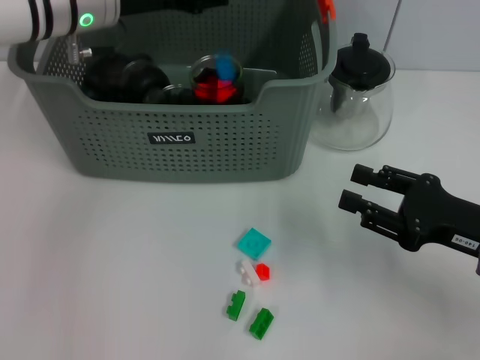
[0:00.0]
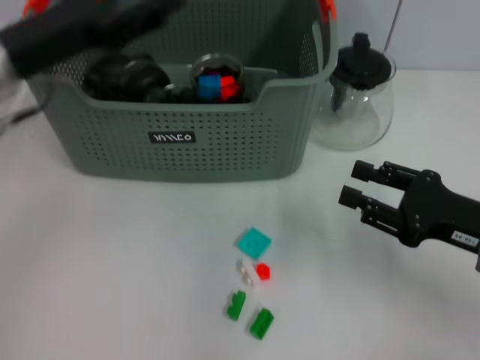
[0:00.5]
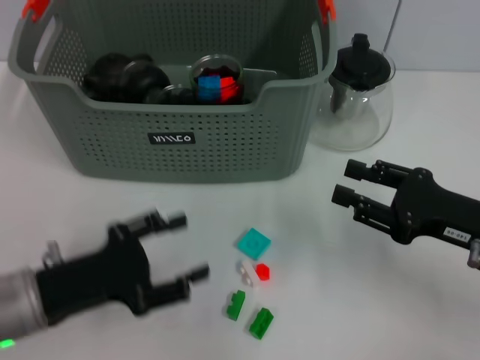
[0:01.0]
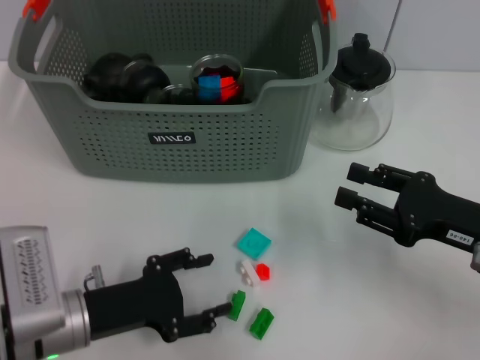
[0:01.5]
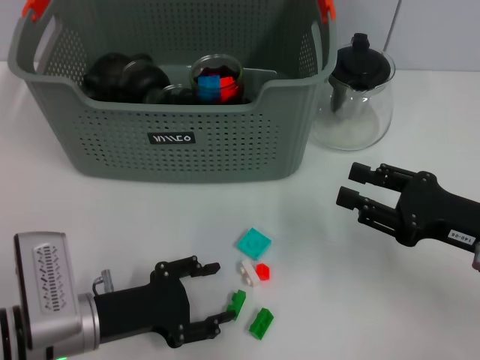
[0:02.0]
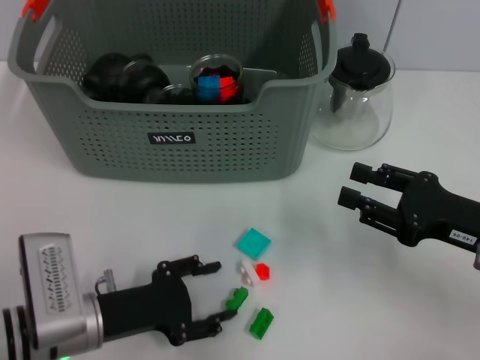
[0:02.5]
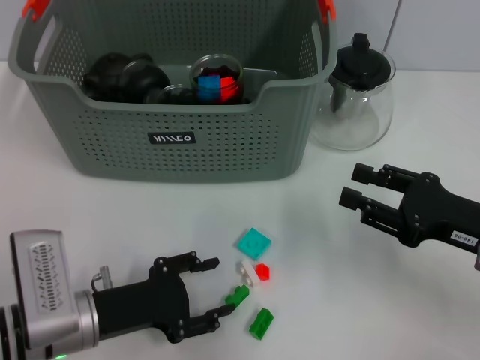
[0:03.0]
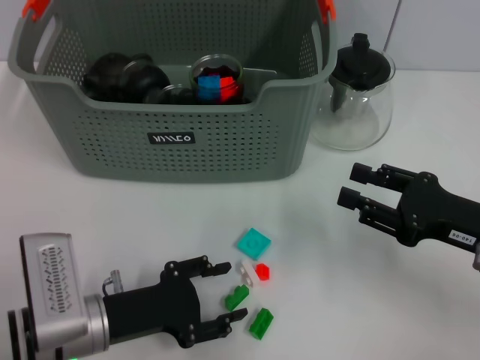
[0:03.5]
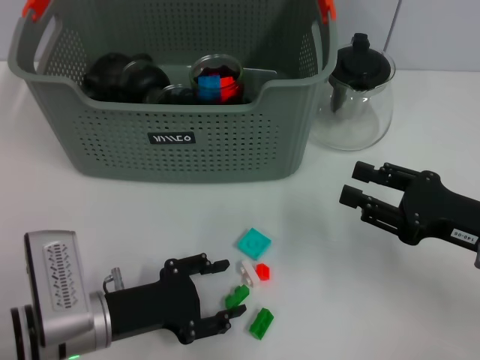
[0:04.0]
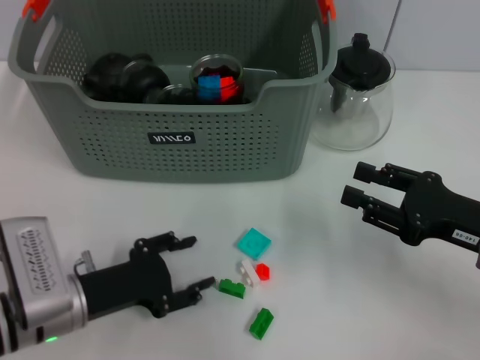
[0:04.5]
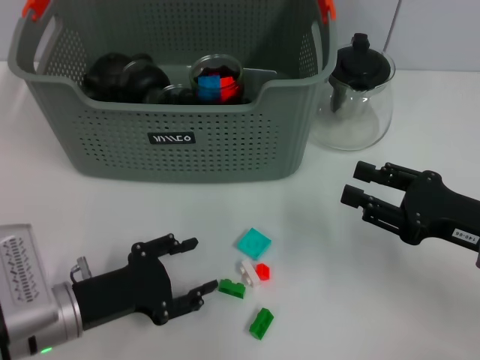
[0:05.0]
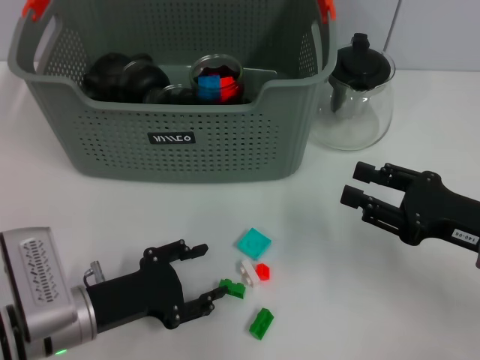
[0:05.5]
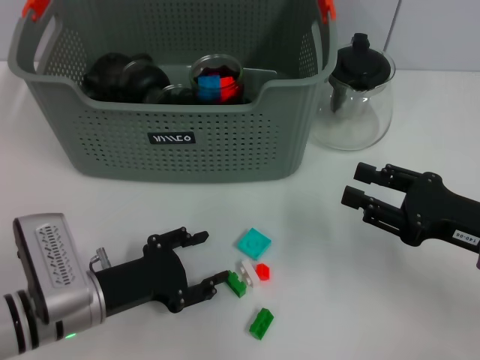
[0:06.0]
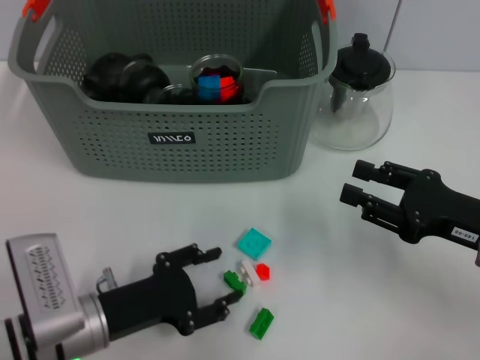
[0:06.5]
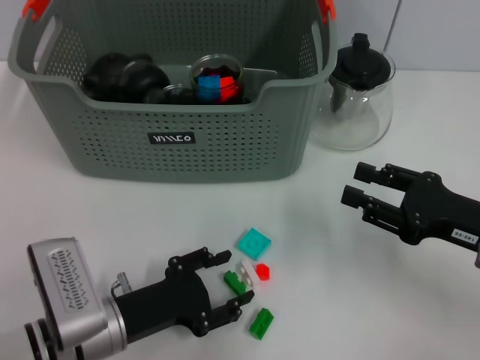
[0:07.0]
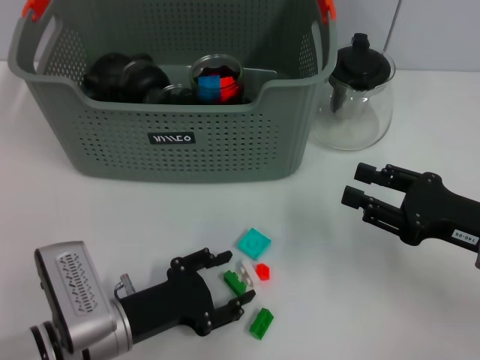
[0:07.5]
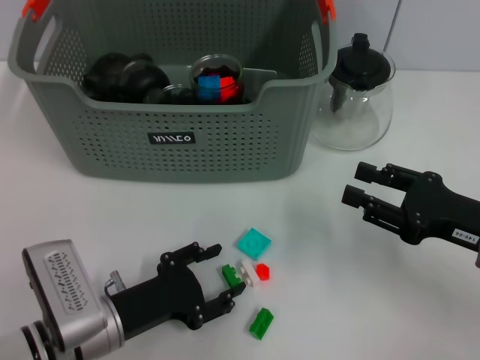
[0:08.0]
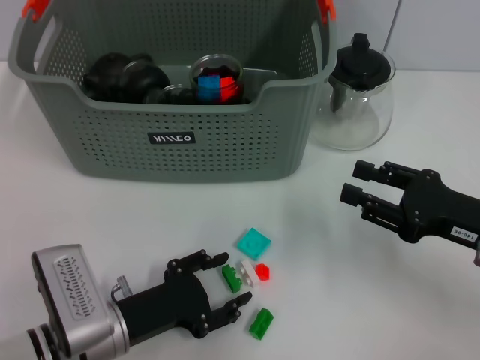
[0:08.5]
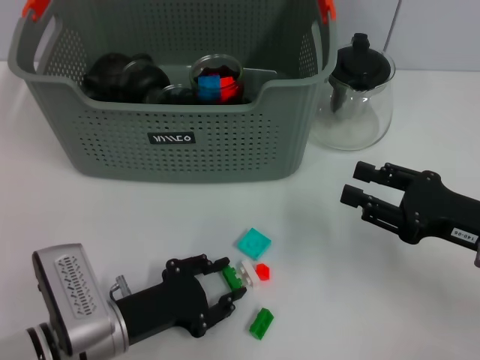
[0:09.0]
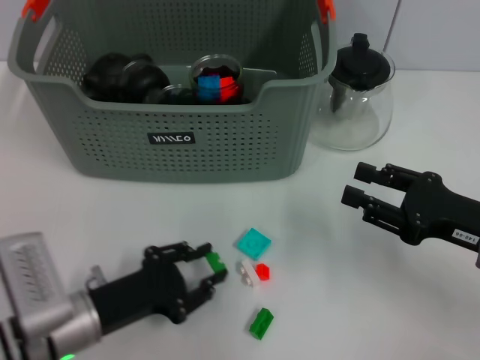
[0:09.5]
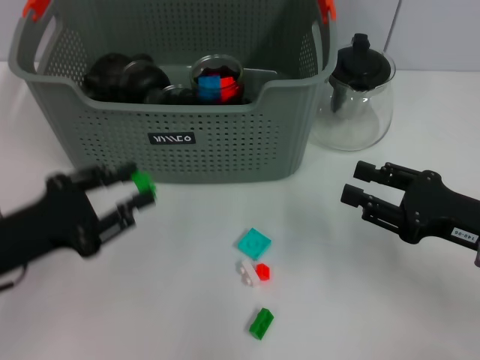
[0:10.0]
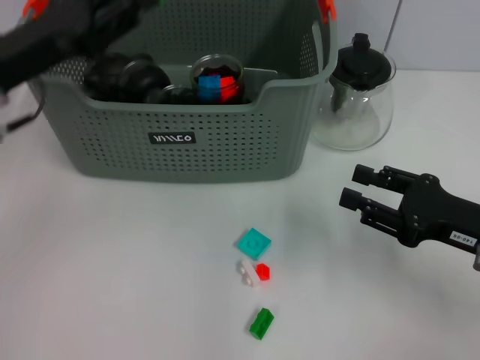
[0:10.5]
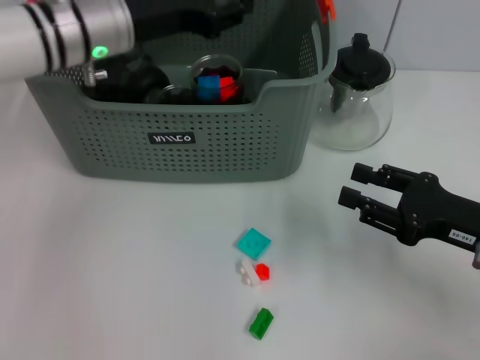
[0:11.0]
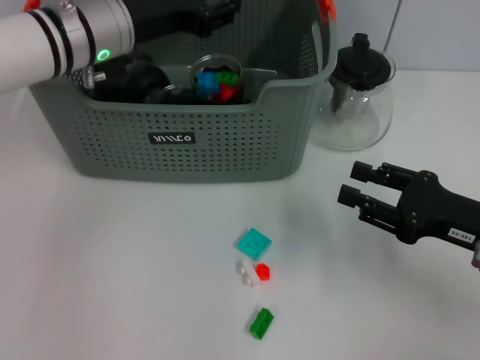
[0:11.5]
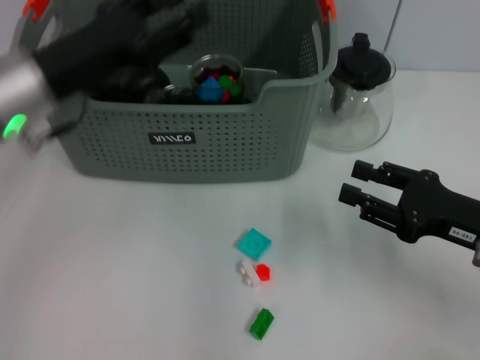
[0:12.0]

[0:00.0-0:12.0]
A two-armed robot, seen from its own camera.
Task of the whole recording: pick up the teacup on the table and place it into the storage bin, pick up the block on the table and place it into the storage bin.
Step, 0:01.0 to 0:09.0: Grasp the green block with left gripper.
Step, 0:09.5 to 0:11.5: Place the green block in the storage box with left gripper.
0:00.0 to 0:02.0: The left gripper travels backward and downward by roughly 30 cm.
0:02.0 to 0:04.0: The two grippers keep their place.
0:04.0 to 0:08.0: The grippers move only a little.
0:08.0 to 0:10.0: The left gripper moves to the left and upward, approximately 15 cm.
0:10.0 to 0:12.0: The left gripper travels forward, upward and to the right by approximately 15 cm.

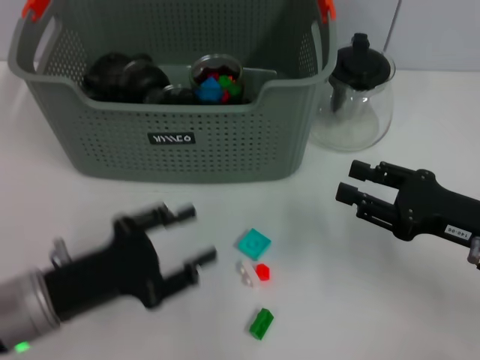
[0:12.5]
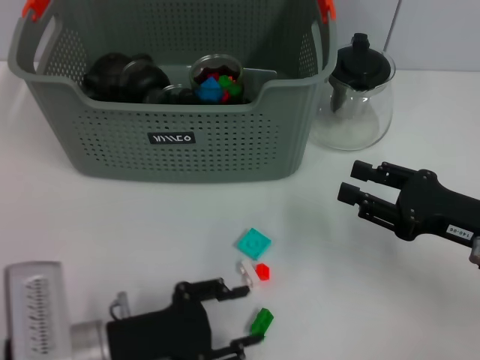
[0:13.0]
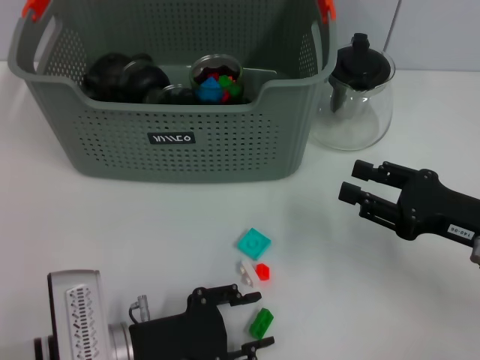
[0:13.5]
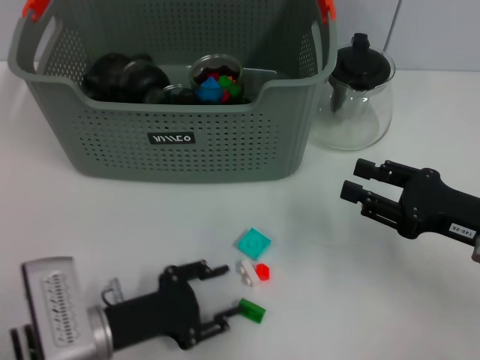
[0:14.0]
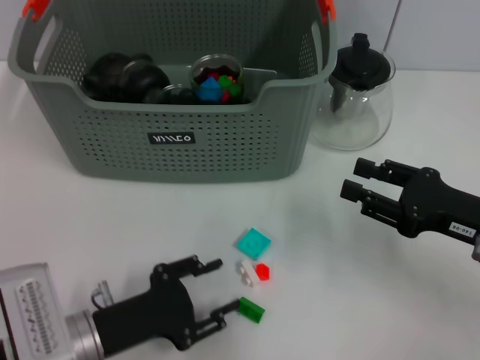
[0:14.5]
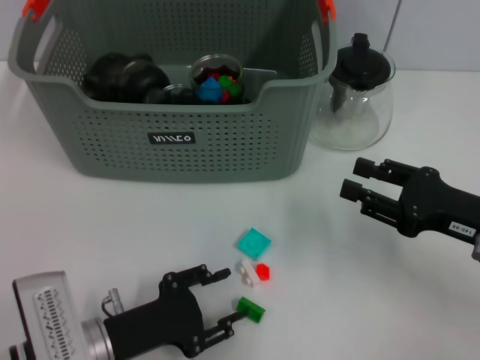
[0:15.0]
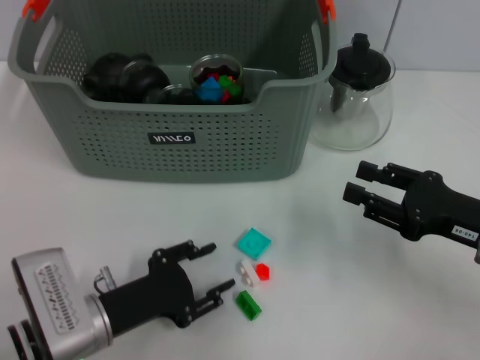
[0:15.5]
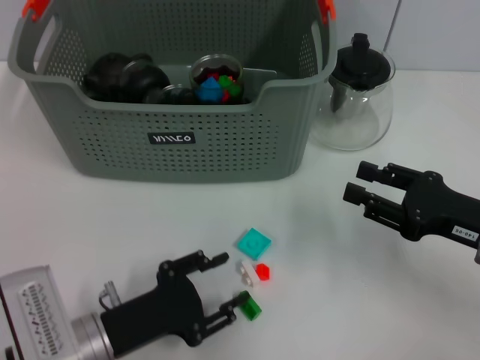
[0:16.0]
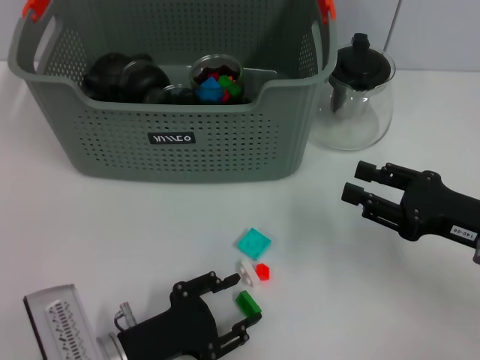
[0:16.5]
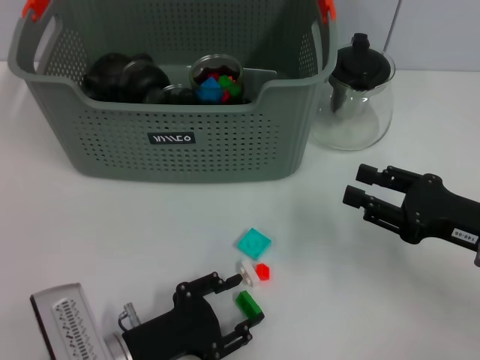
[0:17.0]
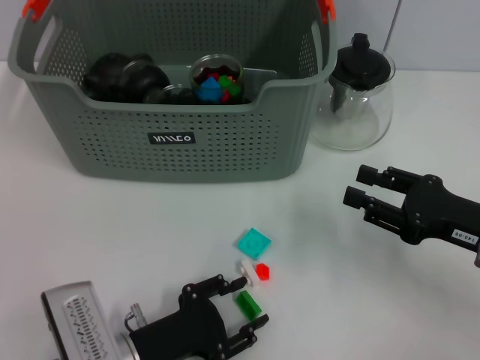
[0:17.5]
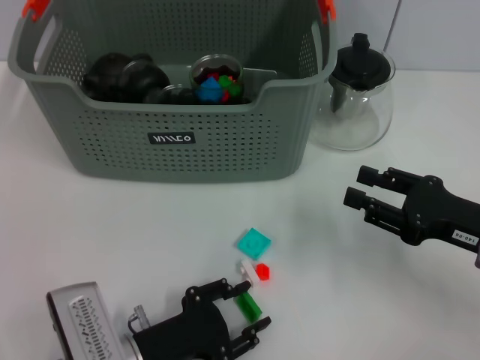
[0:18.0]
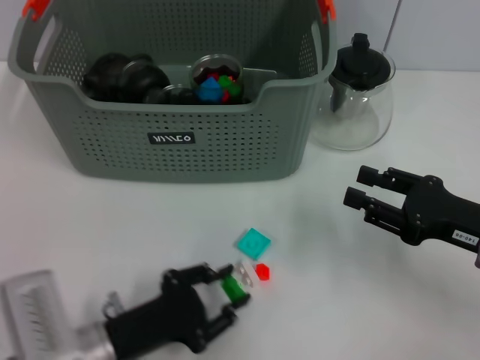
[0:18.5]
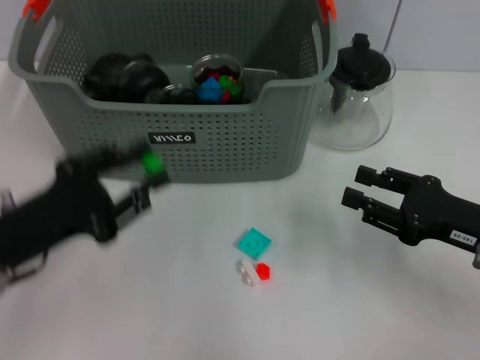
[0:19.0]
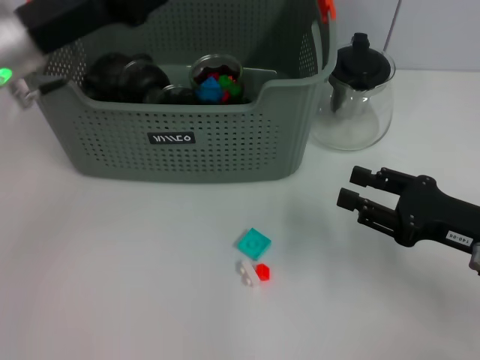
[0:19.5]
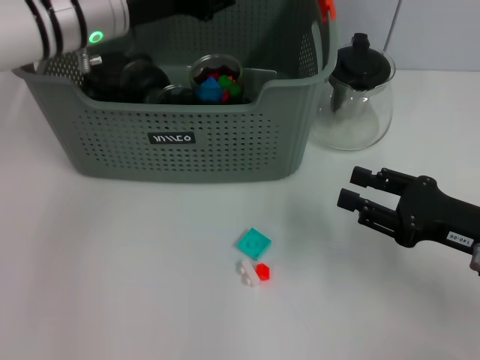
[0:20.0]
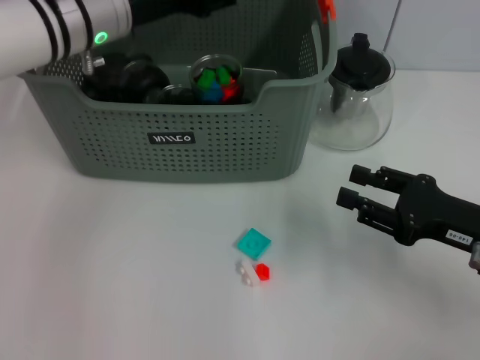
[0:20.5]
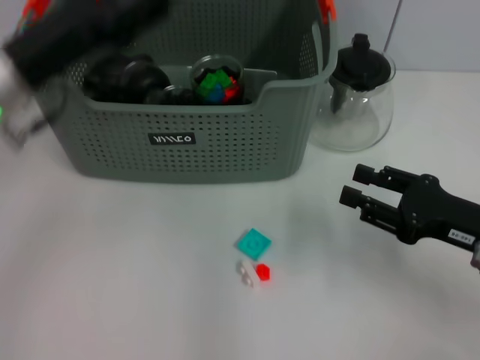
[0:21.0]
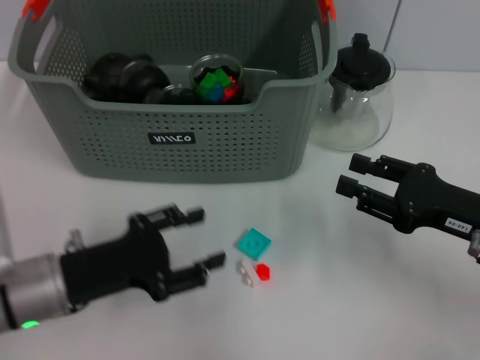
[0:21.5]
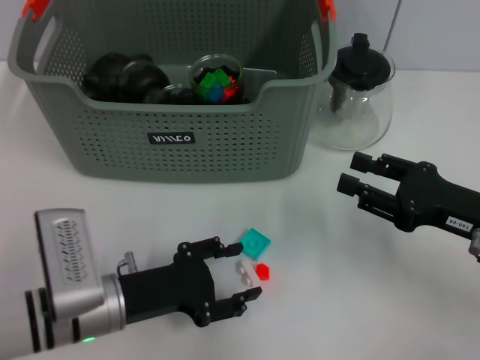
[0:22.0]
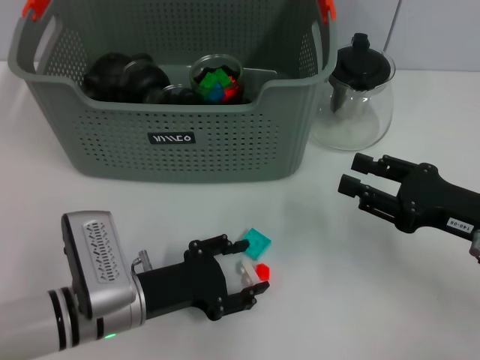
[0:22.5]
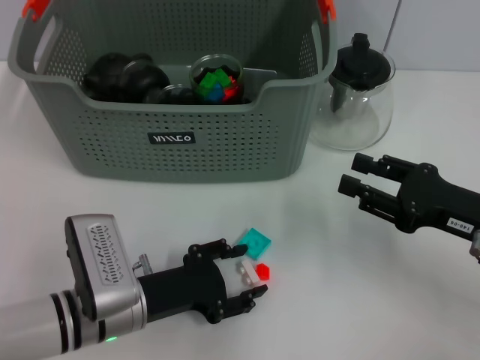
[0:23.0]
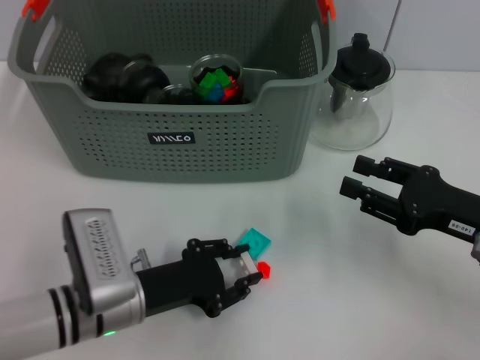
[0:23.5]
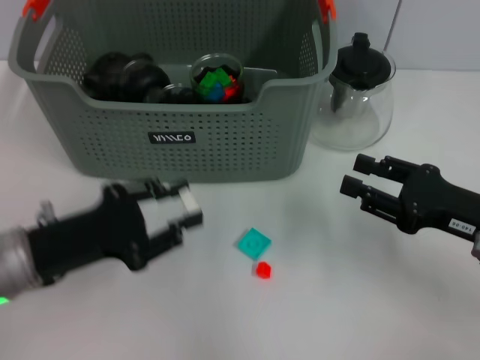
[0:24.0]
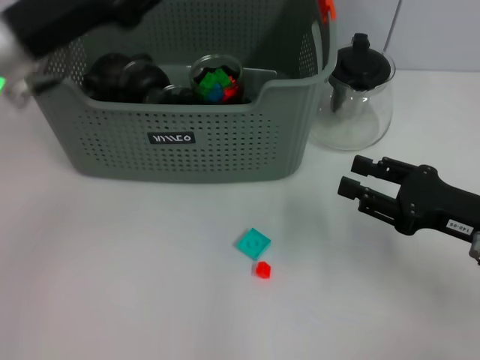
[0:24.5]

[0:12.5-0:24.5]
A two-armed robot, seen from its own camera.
Task of the whole recording: pick up the teacup on the table and place it into the storage bin, pick up the block on the table and place it into the storage bin.
Step, 0:12.5 to 0:18.0: Grasp the green block with left gripper.
Step, 0:18.5 to 0:20.5: Place the green block in the storage box with left gripper.
Step, 0:21.0 to 0:23.0: Grasp the white block with left gripper.
0:12.5 to 0:14.5: The left gripper is displaced downward by some 5 cm.
0:14.5 to 0:18.5: The grippers stay close to where they were, moving slightly.
0:18.5 to 0:20.5: The left gripper heads forward and upward, covering some 30 cm.
0:20.5 to 0:22.5: The left gripper travels downward and backward by about 25 cm.
0:22.5 to 0:24.5: The left gripper moves upward and forward, some 20 cm.

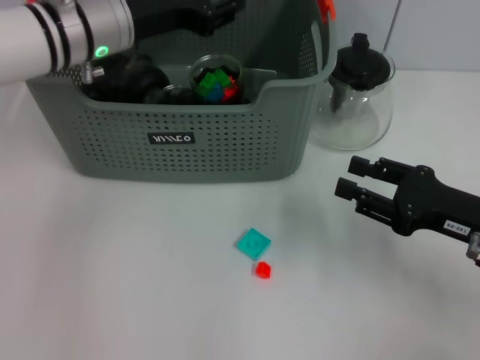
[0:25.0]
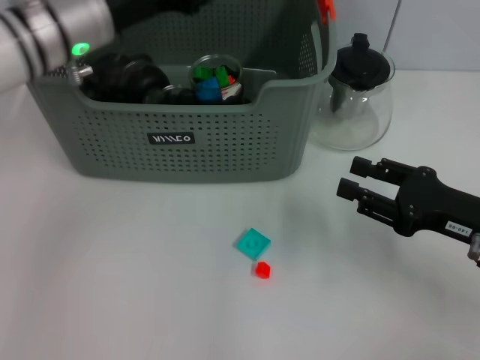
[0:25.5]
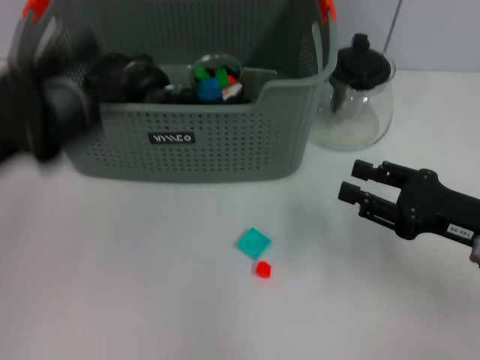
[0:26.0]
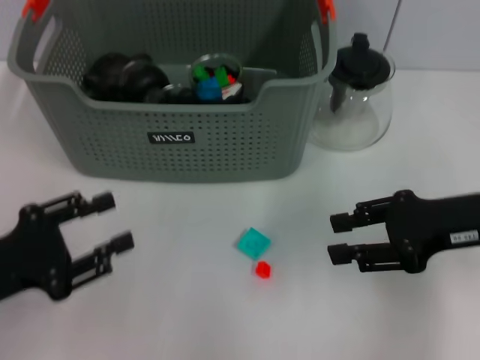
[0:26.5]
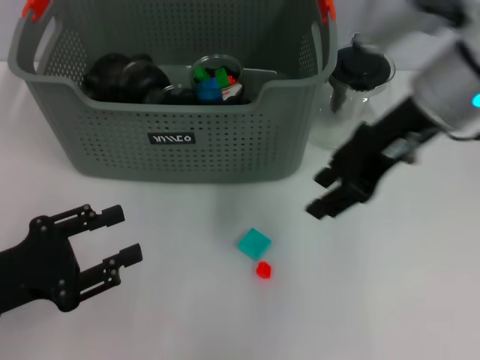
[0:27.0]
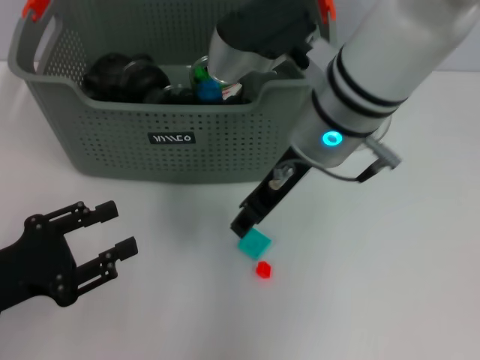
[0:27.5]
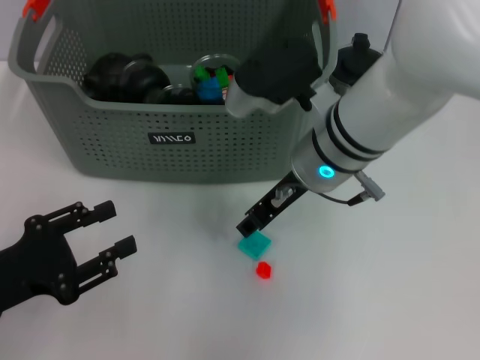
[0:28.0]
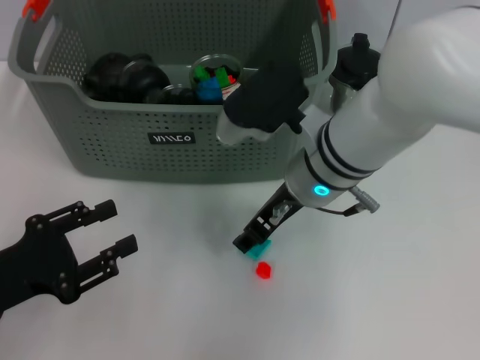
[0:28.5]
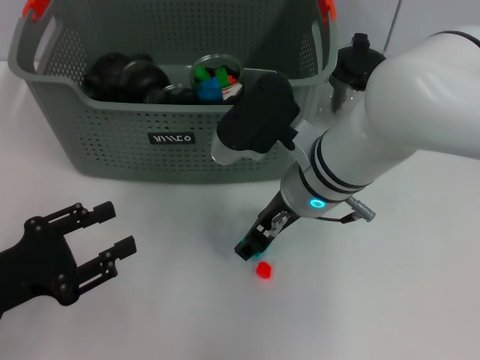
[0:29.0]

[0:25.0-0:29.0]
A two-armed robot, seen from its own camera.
Task of the whole recording: pick up the teacup on the table and place it into the storage bin, pick up the block on the table and place it into the storage bin.
0:25.0 to 0:27.0: The left gripper moves backward, to the left and downward, some 30 cm. The right gripper goes roughly 25 cm upward, to the left and forward.
0:27.0 to 0:29.0: The right gripper moves downward and to the left, about 15 cm.
